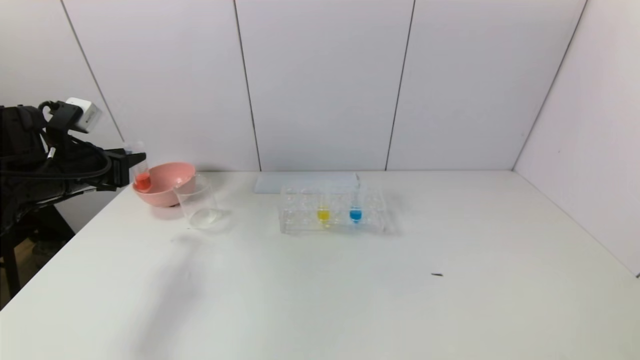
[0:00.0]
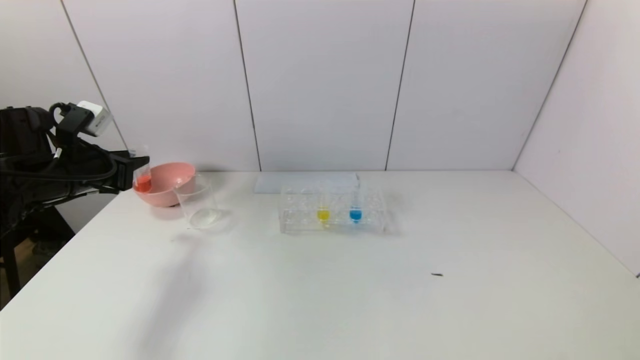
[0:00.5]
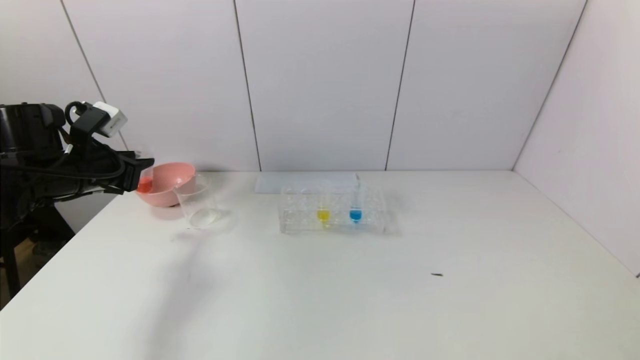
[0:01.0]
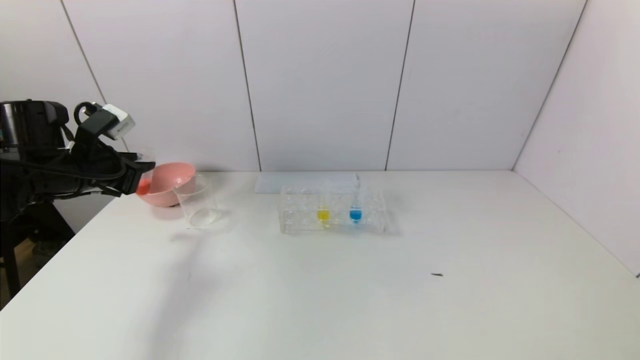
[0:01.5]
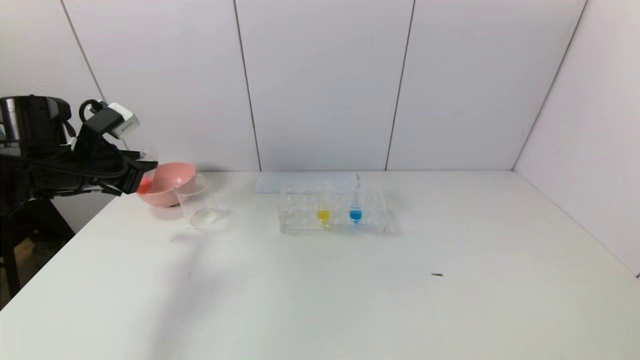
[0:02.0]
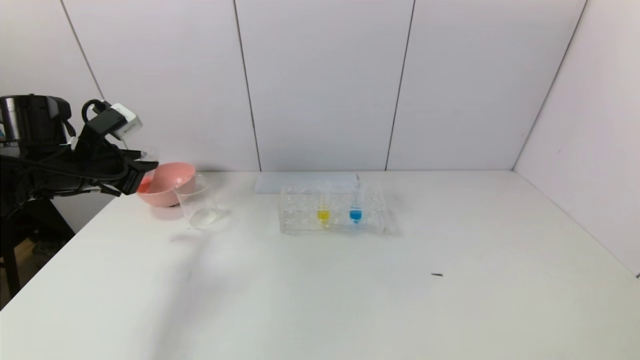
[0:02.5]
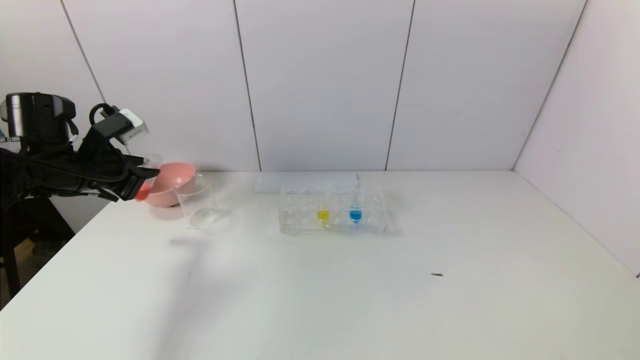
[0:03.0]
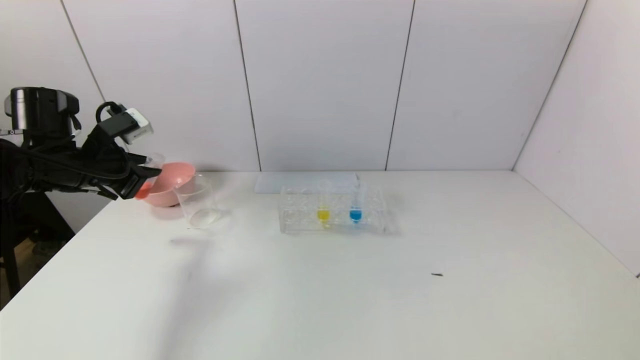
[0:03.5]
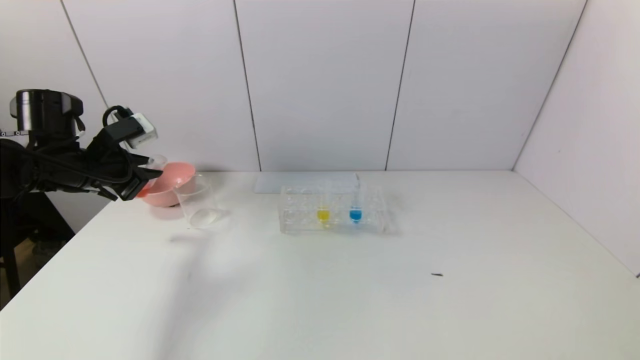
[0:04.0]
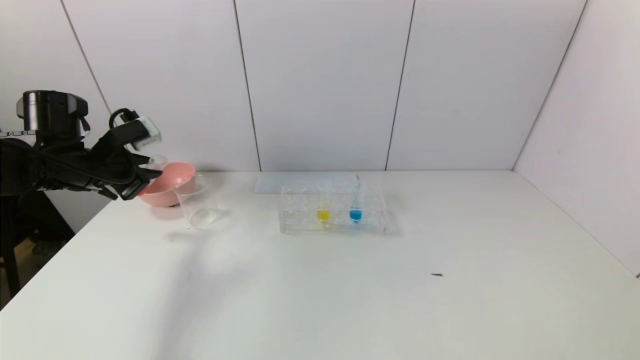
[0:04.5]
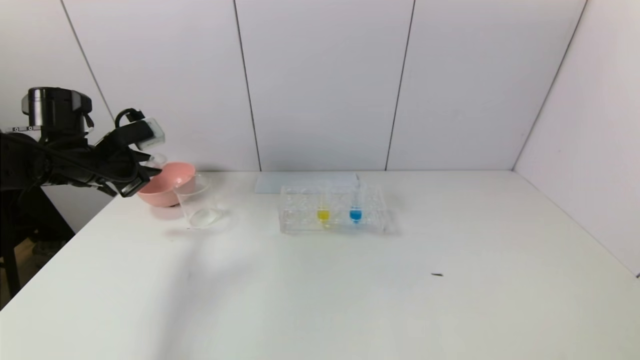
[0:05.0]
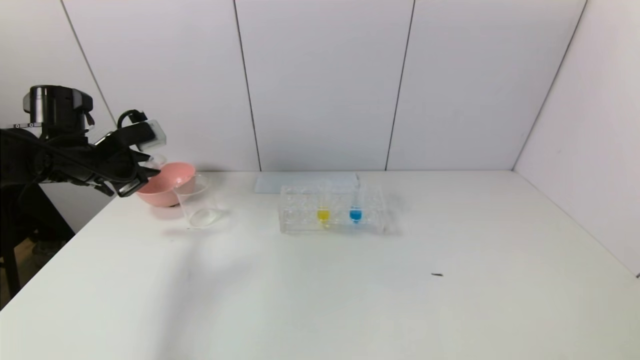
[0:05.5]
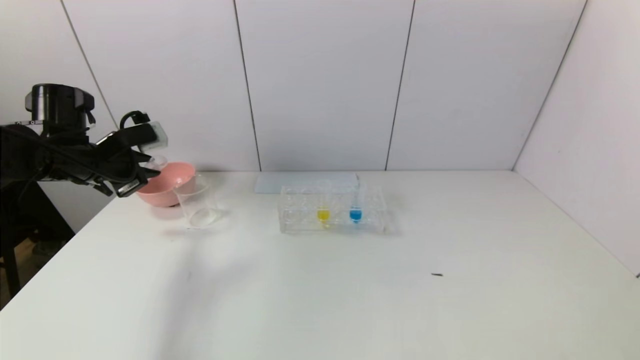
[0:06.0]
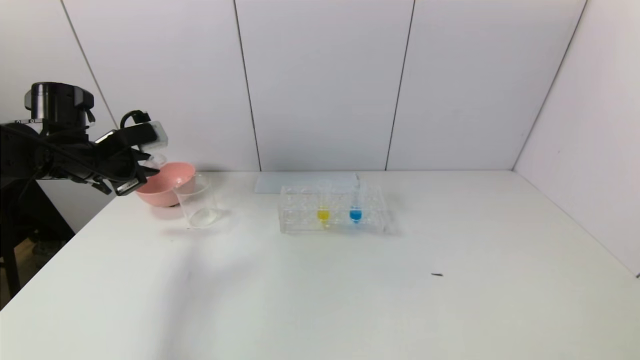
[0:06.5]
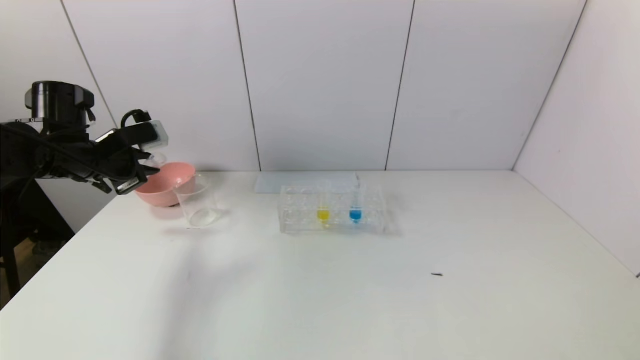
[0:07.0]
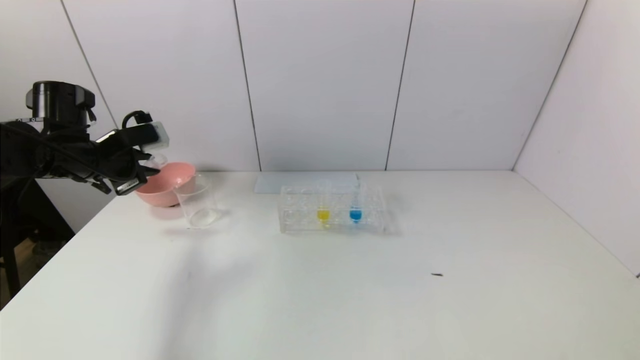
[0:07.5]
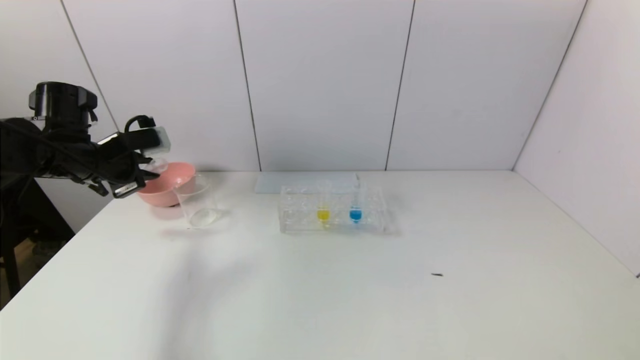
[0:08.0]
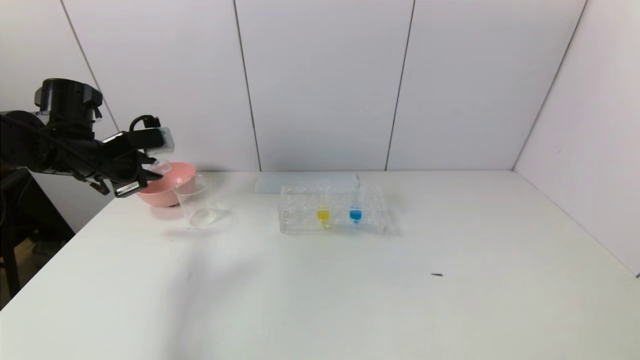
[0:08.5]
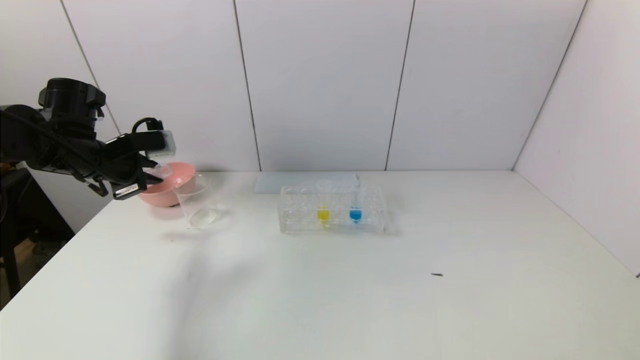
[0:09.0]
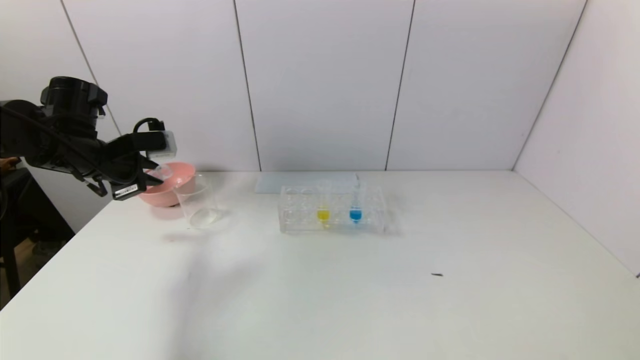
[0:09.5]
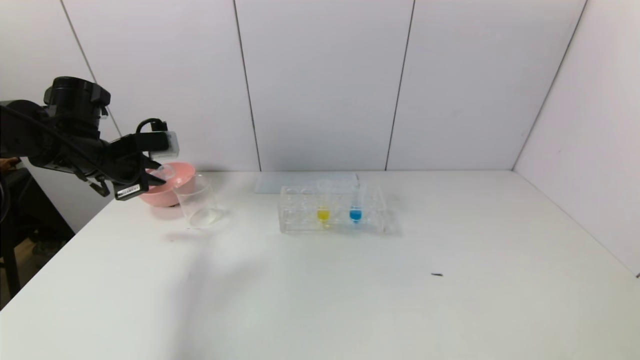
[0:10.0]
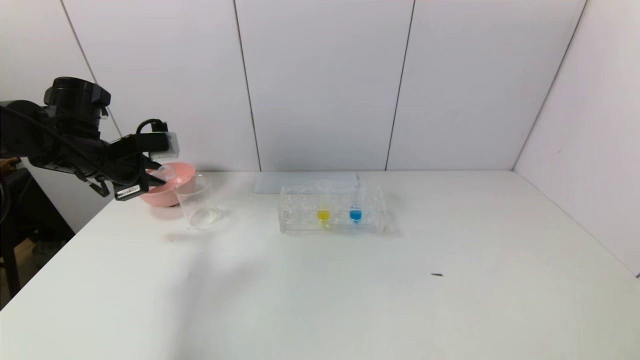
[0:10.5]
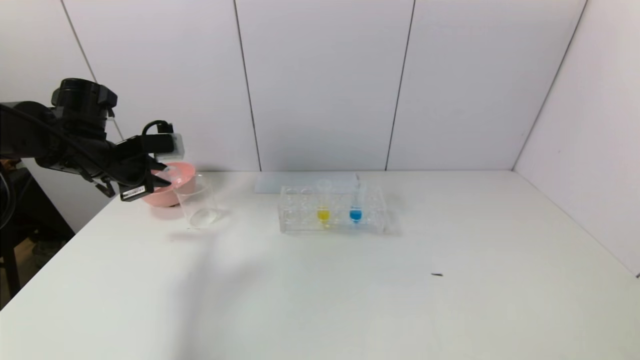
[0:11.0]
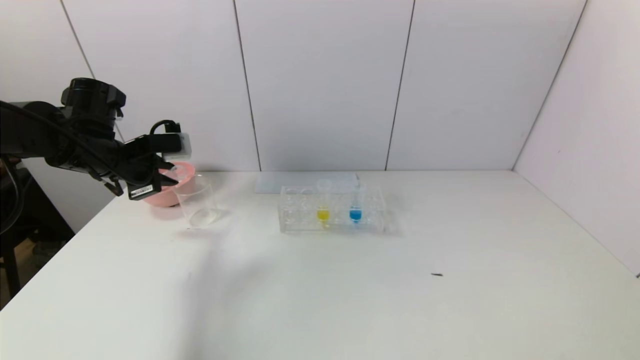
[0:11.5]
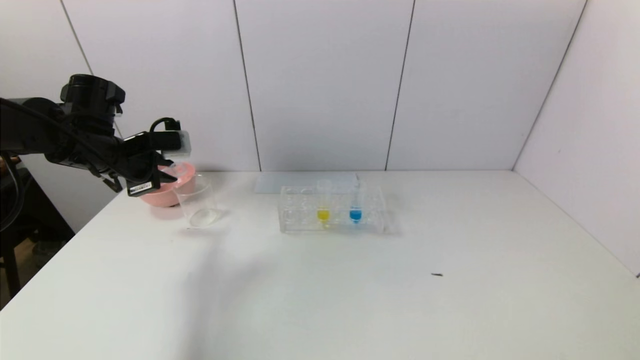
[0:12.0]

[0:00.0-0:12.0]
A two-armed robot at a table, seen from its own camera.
Task of the whole recording: pick up the test tube with yellow pigment and the test tube with red pigment by grippers and pour them into the beaker.
0:00.0 to 0:02.0: The grippers stay close to where they were, moving slightly.
0:02.0 to 0:04.0: The grippers move only a little.
0:04.0 to 0:08.0: The grippers make only small movements.
0:08.0 to 0:12.0: The grippers stay close to where they were, moving slightly.

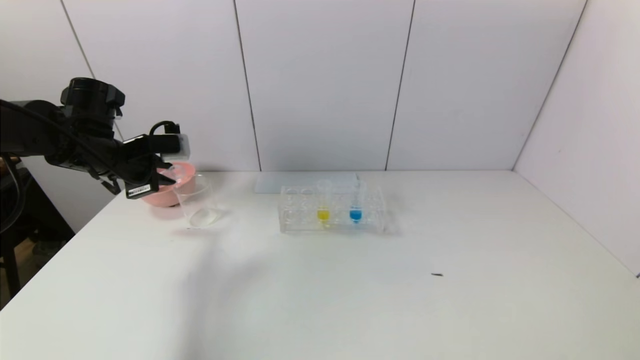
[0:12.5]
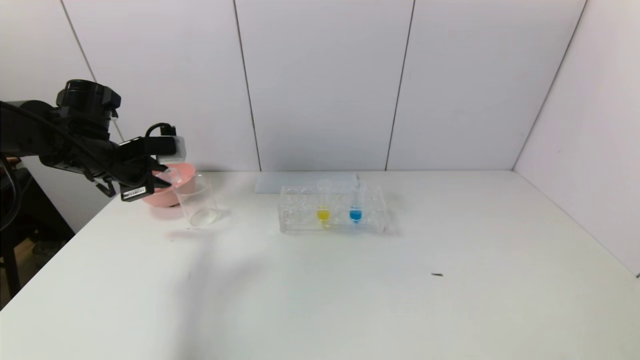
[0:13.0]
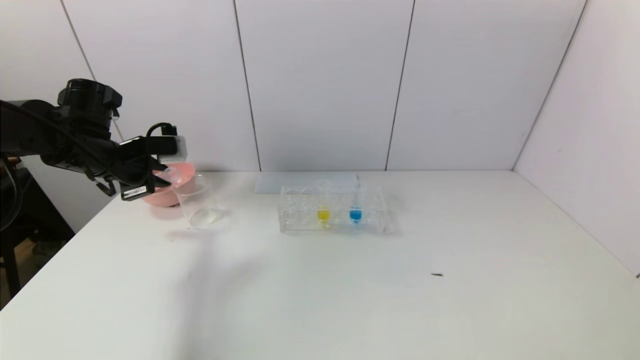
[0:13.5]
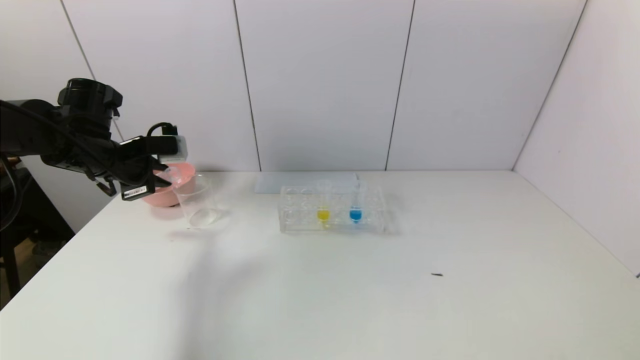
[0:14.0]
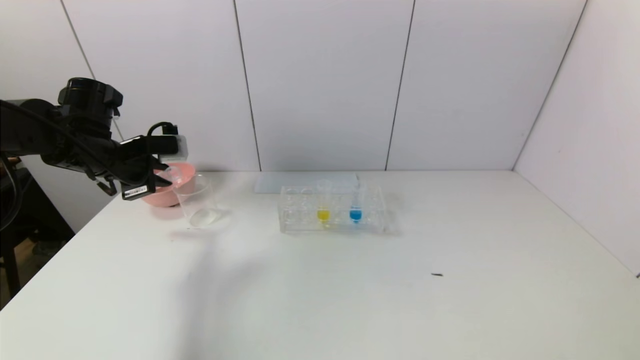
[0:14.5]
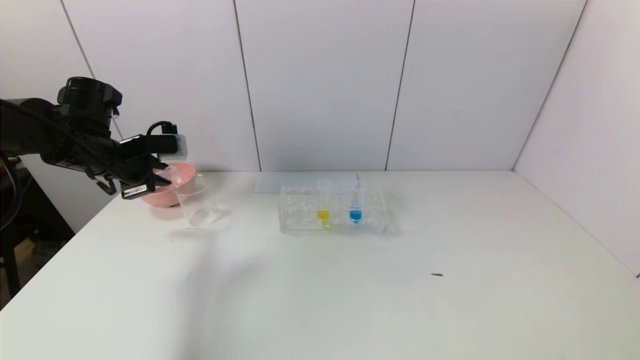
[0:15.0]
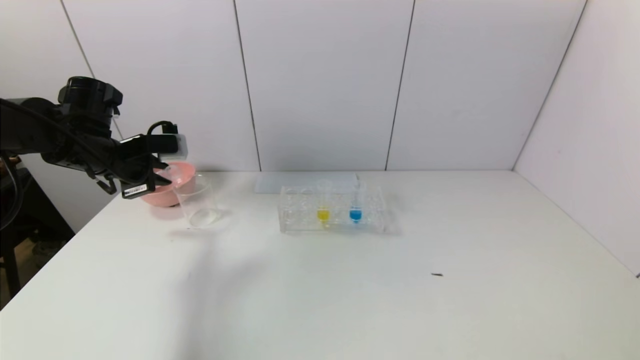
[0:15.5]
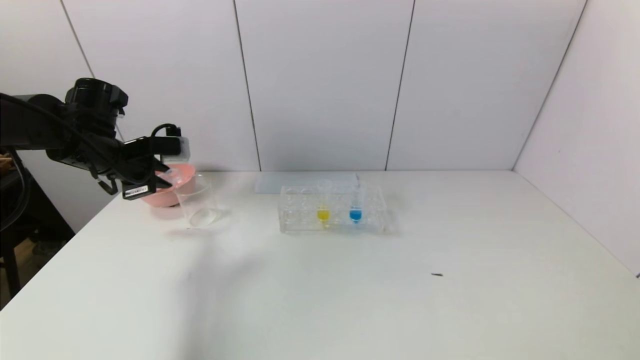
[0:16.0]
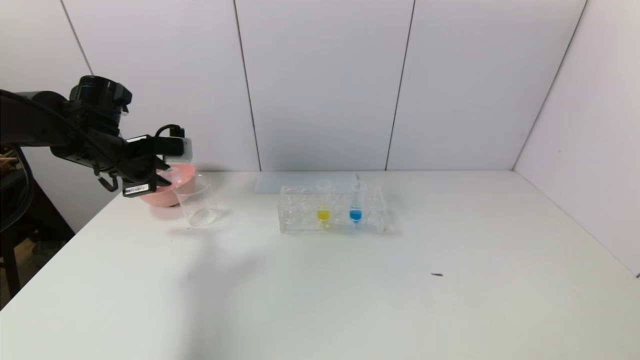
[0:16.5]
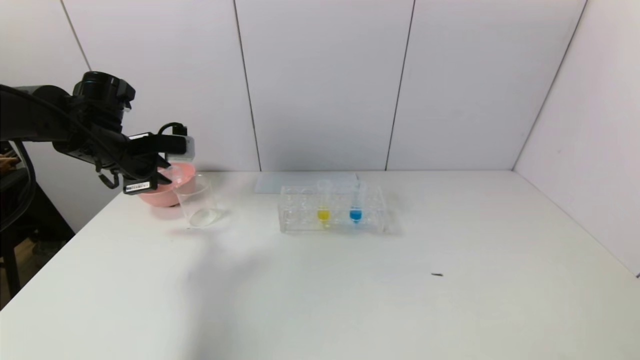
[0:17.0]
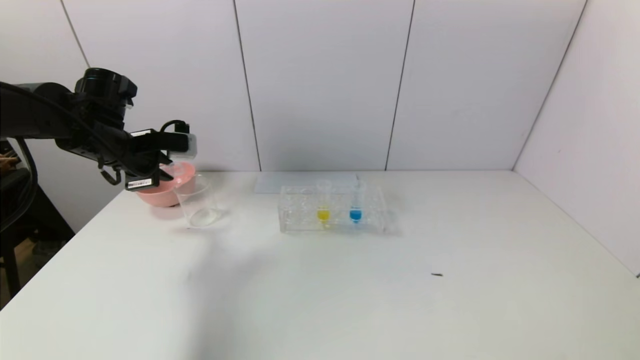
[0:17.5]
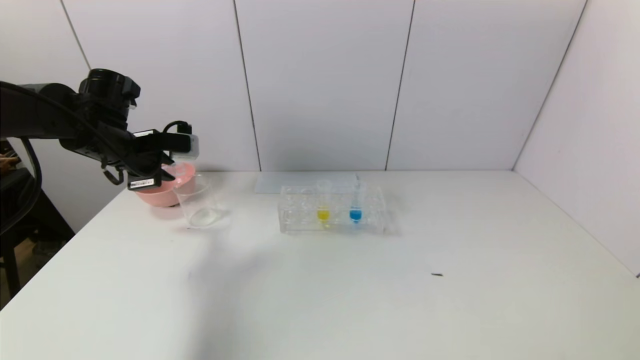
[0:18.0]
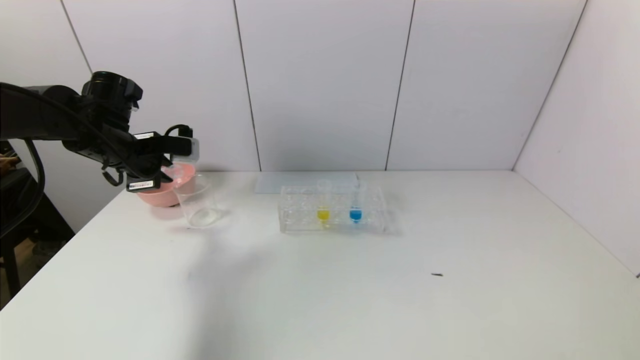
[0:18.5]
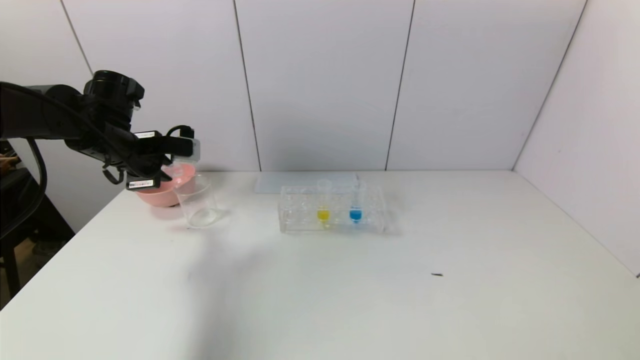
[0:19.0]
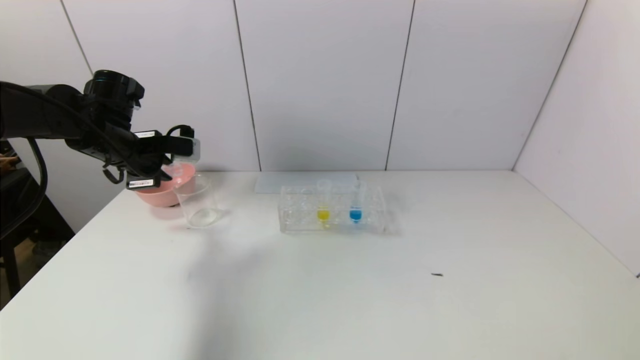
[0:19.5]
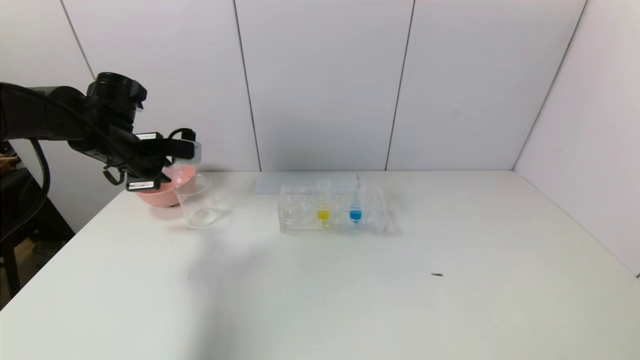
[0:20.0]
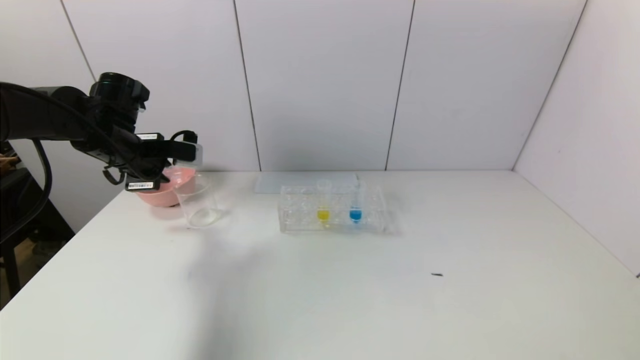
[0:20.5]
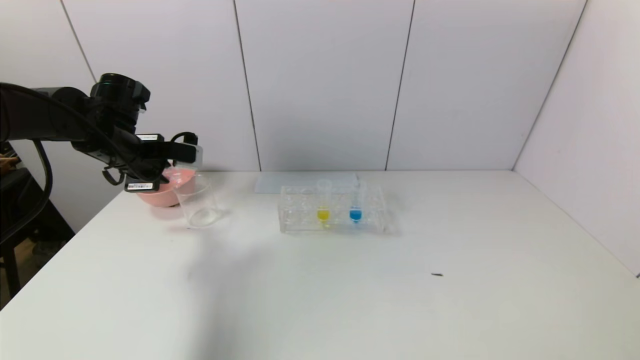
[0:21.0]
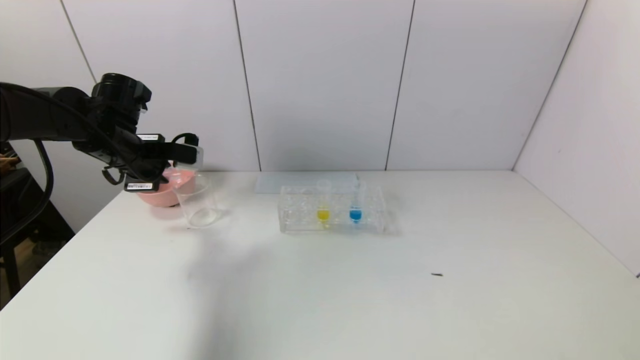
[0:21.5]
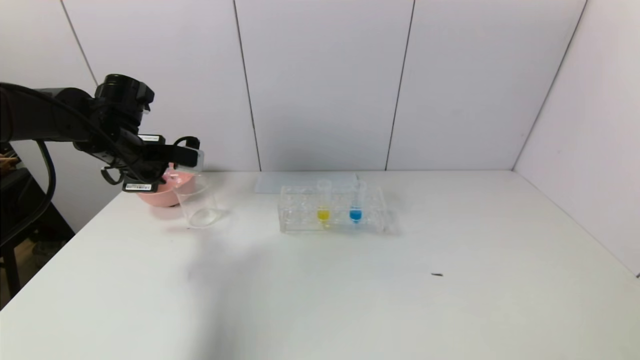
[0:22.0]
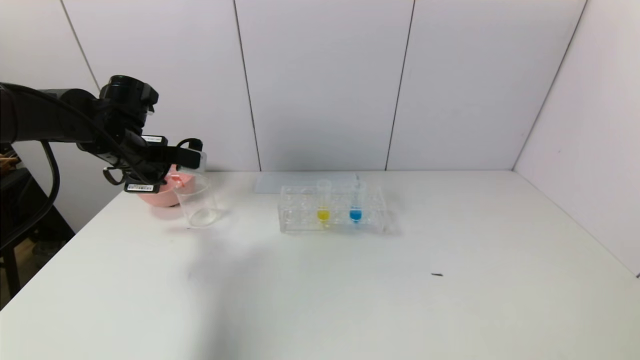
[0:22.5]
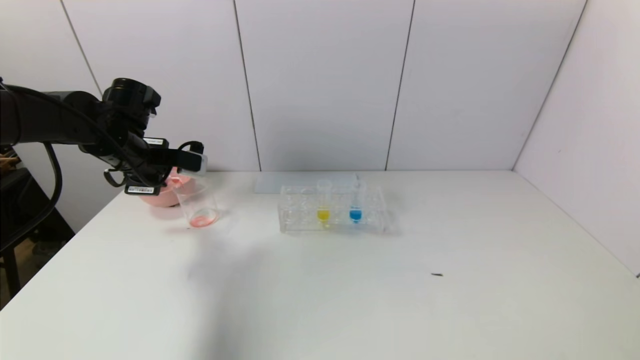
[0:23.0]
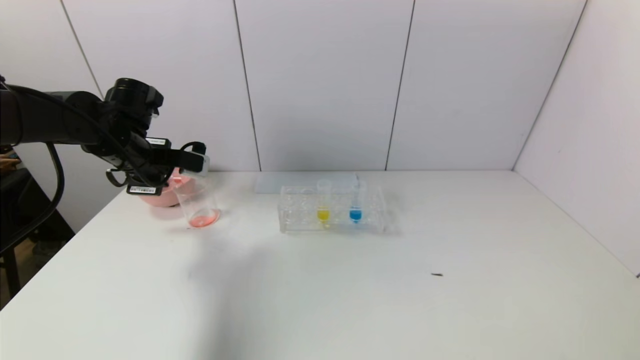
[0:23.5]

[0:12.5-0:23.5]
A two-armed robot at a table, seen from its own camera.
Task of the whole recording: pick up the test tube with yellow pigment and the test tube with red pigment by grippers and pour them into the beaker.
0:12.5 to 0:16.0: Both grippers stay put.
0:16.0 to 0:21.5: The grippers stay close to where they were, moving slightly.
0:21.5 to 0:23.5: There are only small adjustments of the grippers.
